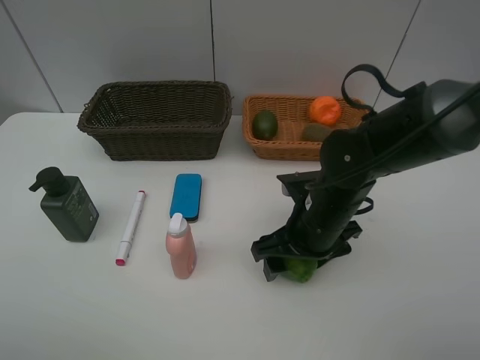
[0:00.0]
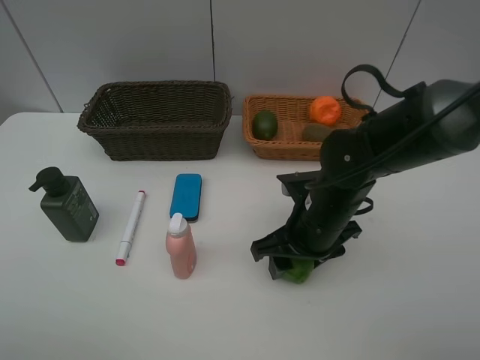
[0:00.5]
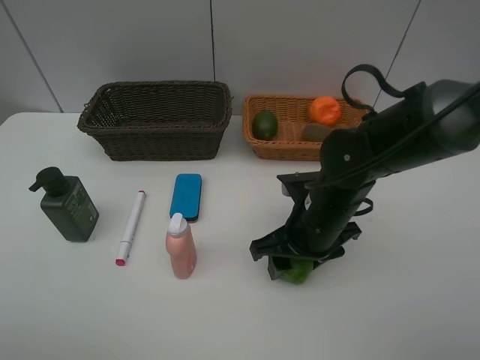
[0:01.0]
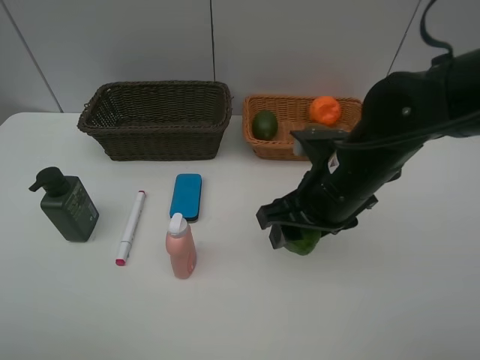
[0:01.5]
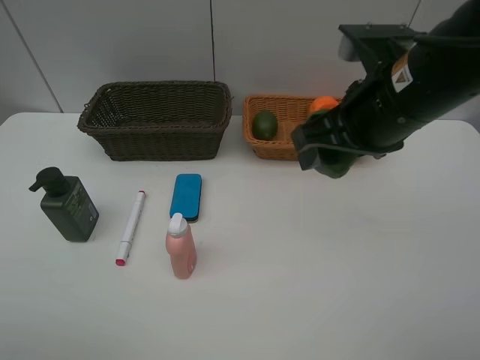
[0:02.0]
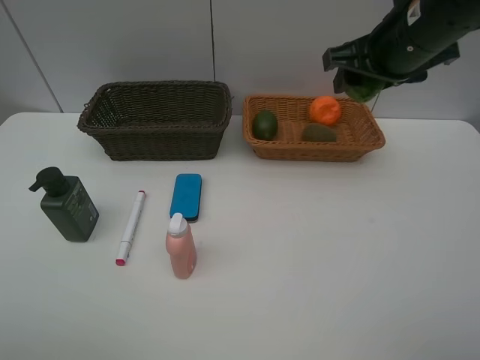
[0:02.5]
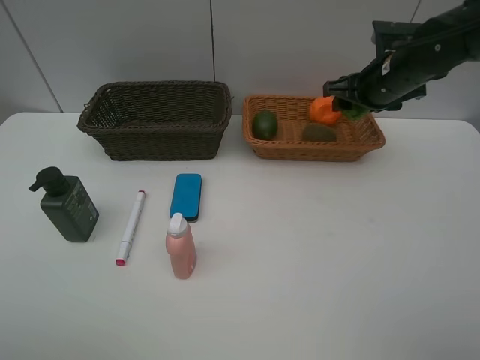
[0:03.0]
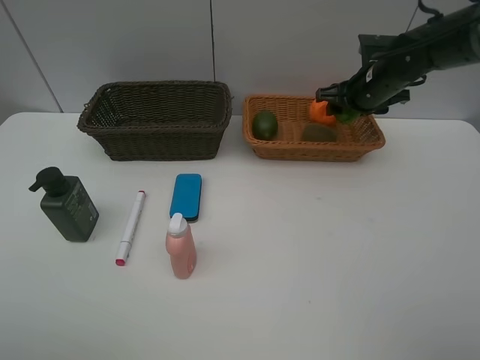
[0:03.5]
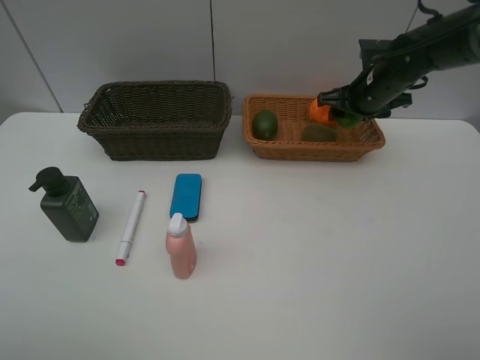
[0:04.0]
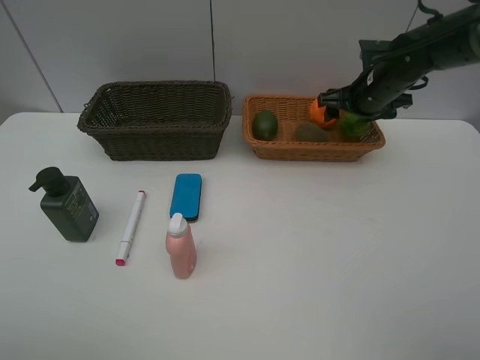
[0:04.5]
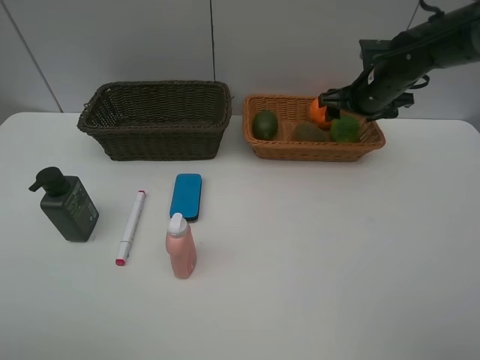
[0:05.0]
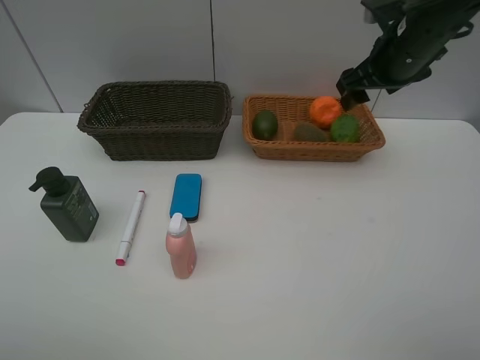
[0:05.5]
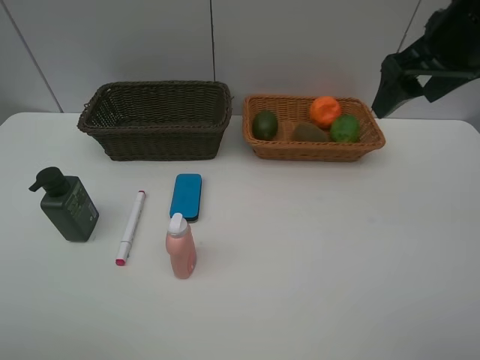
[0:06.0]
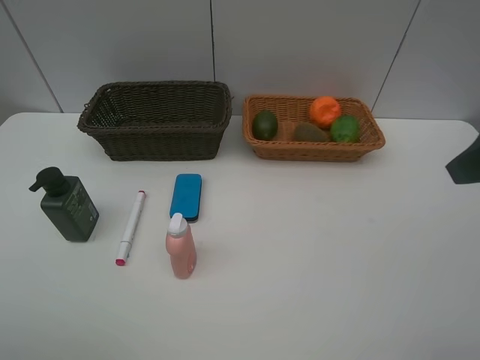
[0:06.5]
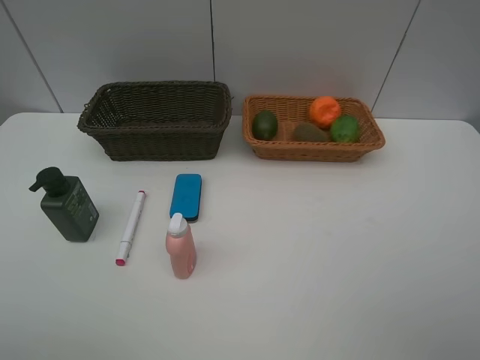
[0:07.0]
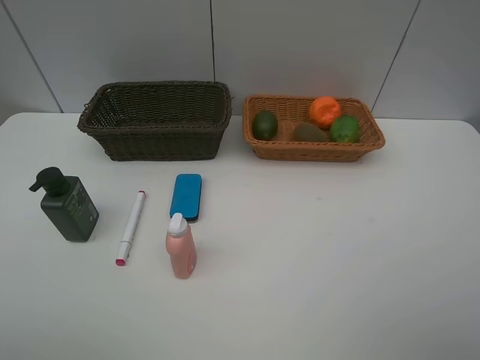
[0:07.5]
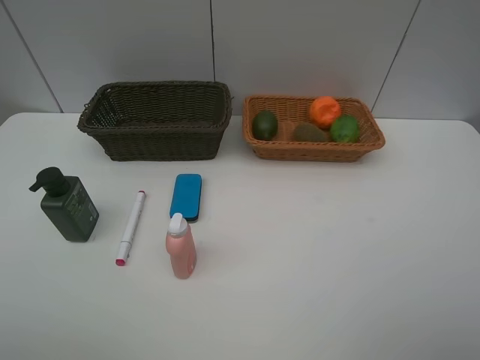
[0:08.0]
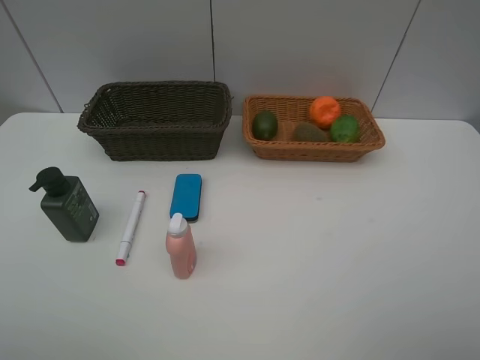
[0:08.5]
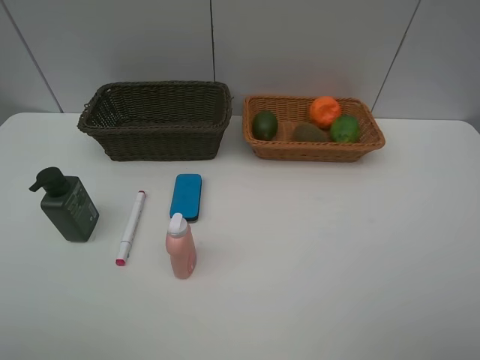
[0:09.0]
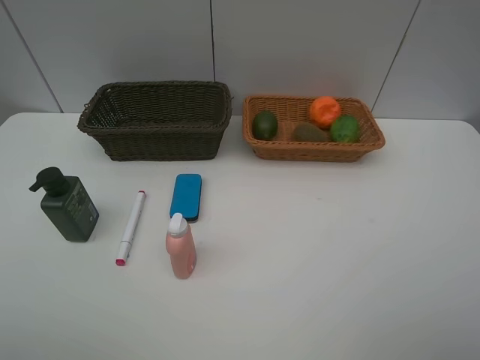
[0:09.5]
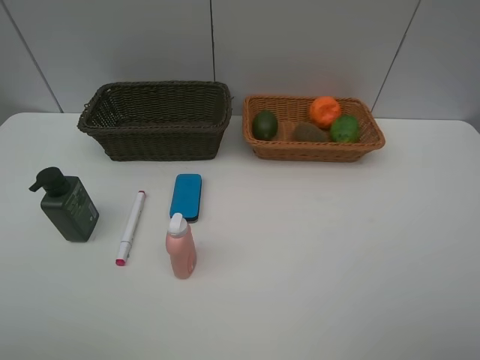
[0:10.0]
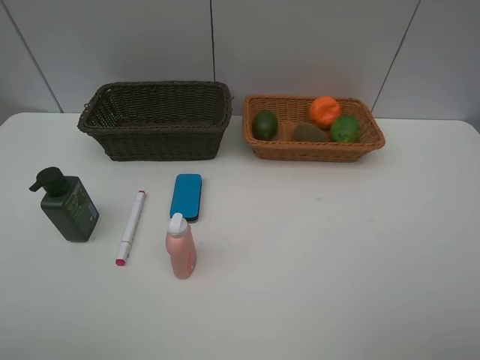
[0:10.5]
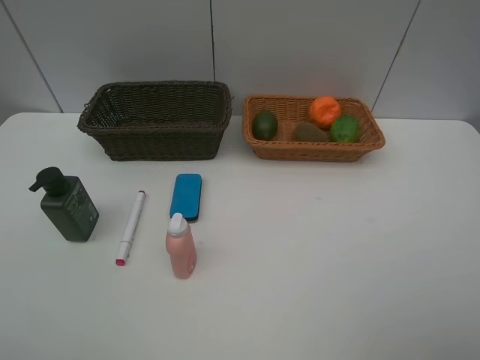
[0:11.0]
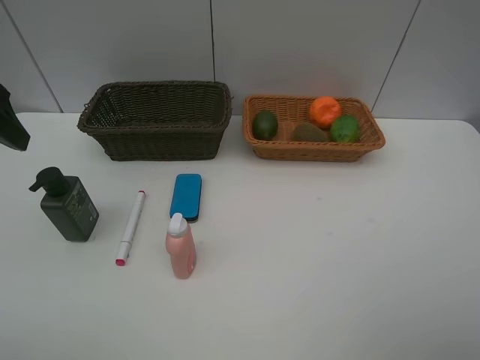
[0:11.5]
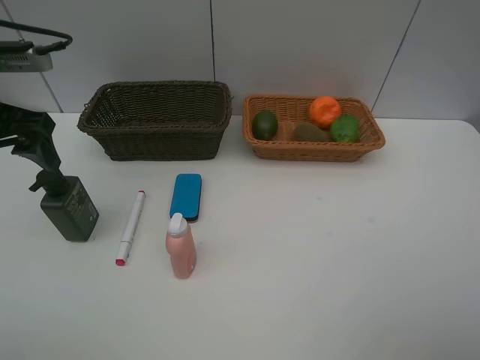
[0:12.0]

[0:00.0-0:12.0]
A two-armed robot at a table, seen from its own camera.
Task of the whole recording: Place multiple objects separately in different baskets.
Step, 0:01.5 to 0:05.0: Place the lime in the light basket with right gripper.
0:00.0 to 0:02.0: The right gripper shifts roughly 15 cm upward, and closes up.
0:02.0 to 0:04.0: The right gripper is displaced forward and downward by about 20 cm.
0:04.0 to 0:06.0: The right gripper moves backward and upward, roughly 20 cm, and opens.
0:06.0 to 0:08.0: The right gripper goes roughly 25 cm backward.
0:08.0 to 0:10.0: Both grippers stay about where they are.
0:10.0 to 0:12.0: The left gripper shifts approximately 25 cm forward.

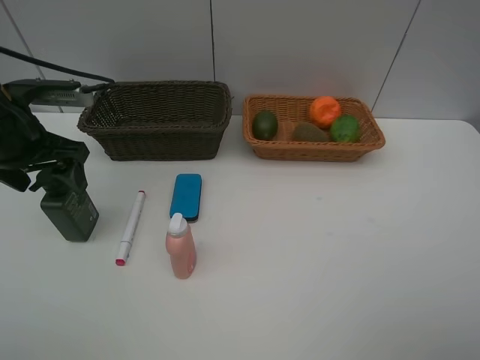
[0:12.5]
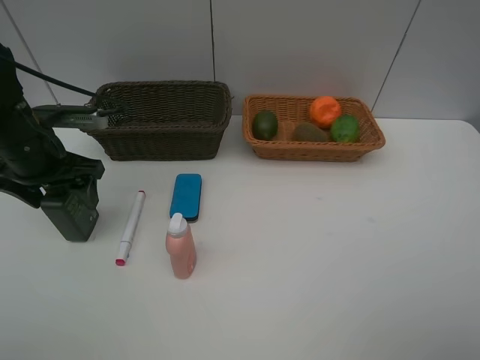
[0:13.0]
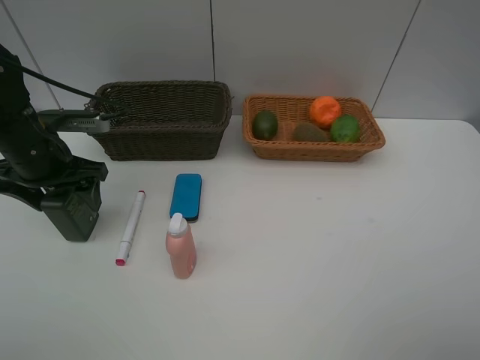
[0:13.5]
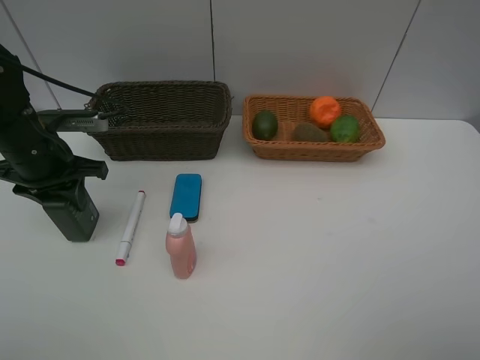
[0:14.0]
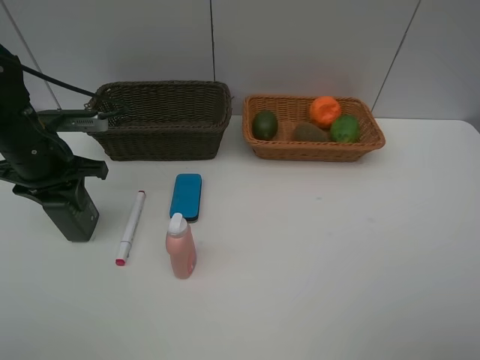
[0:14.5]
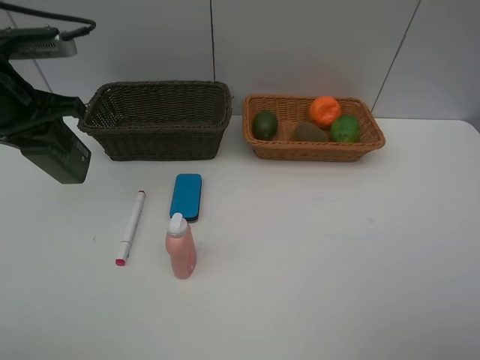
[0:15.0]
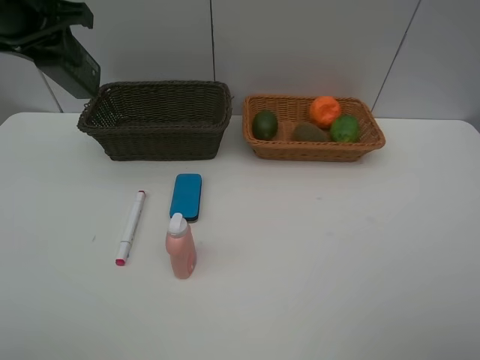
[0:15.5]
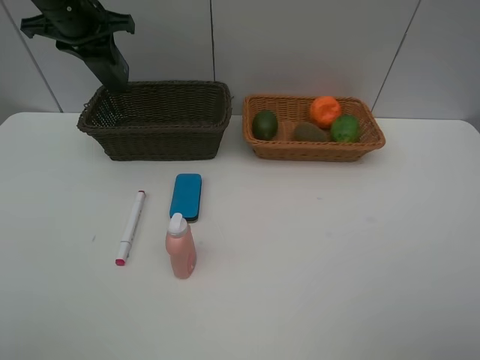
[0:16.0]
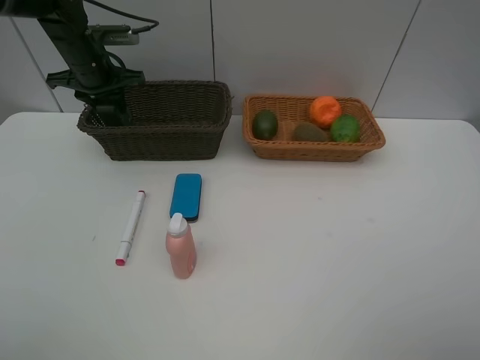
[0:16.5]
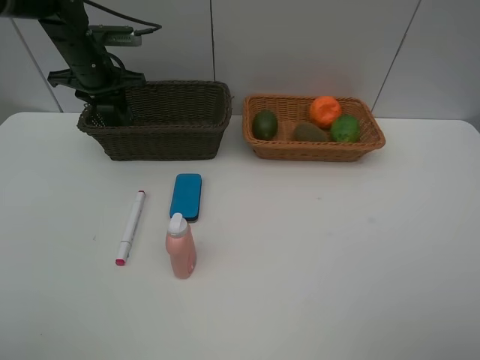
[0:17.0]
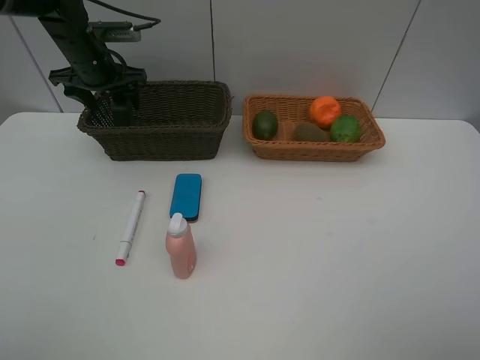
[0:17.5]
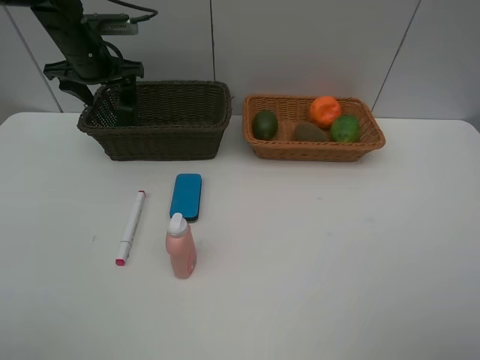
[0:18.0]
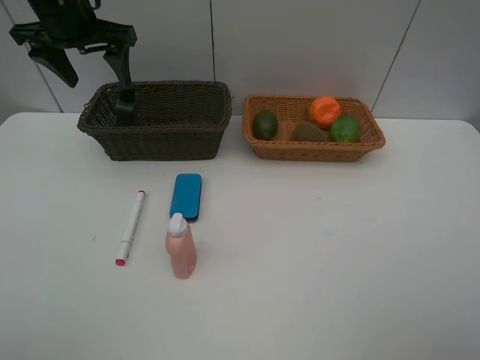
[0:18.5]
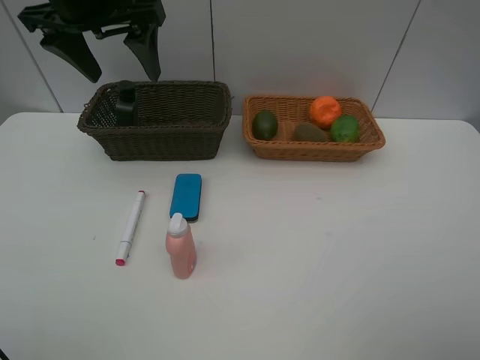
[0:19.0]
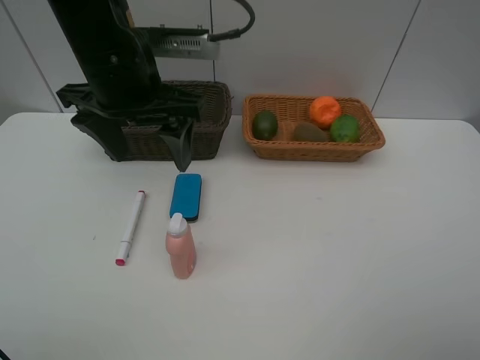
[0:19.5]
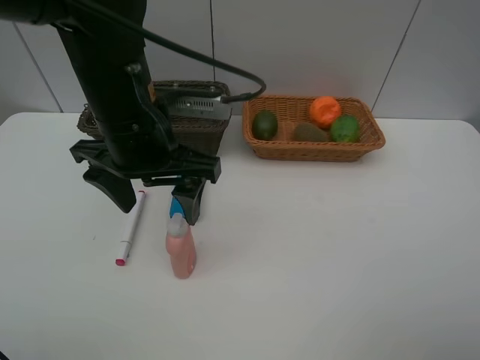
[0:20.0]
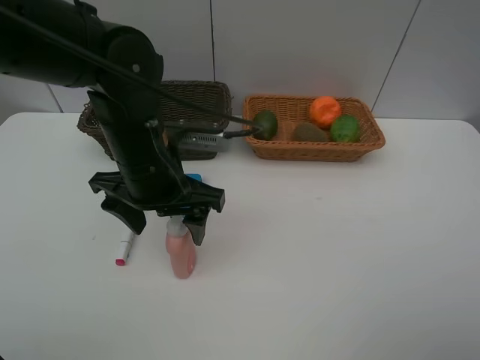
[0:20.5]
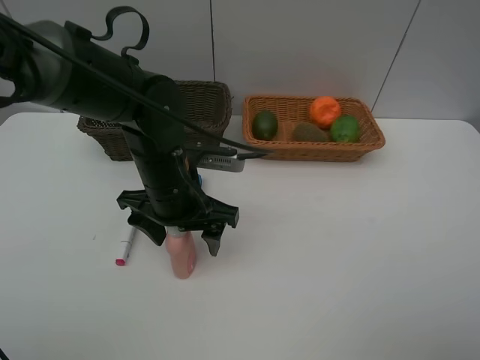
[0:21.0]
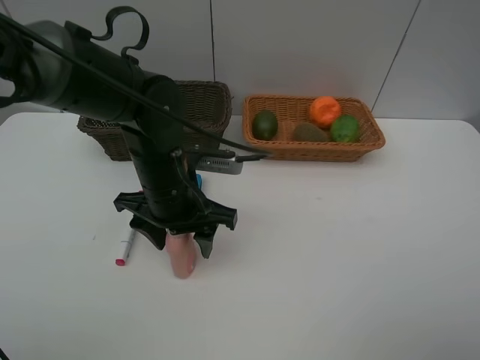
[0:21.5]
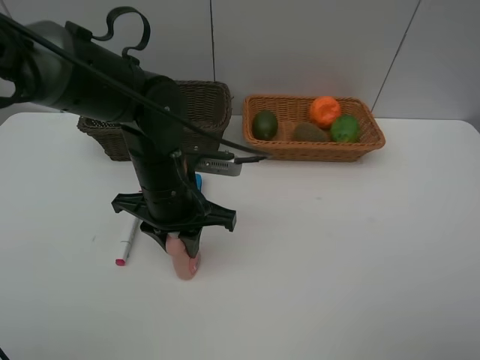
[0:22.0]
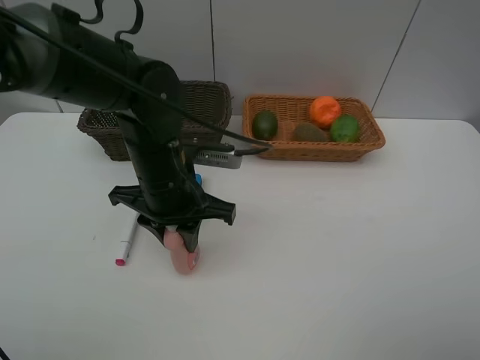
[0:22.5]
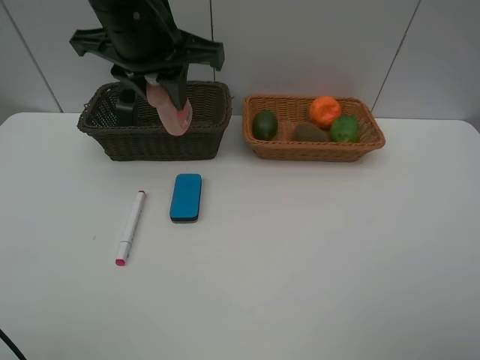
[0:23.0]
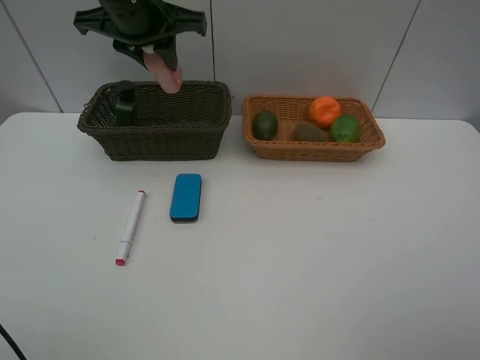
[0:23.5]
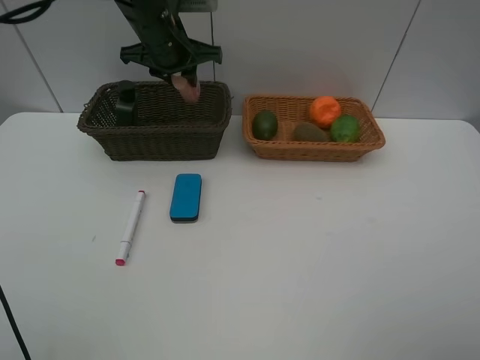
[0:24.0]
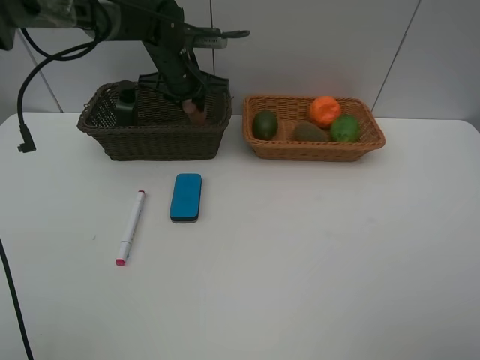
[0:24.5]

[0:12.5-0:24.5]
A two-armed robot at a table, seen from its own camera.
Task of the whole recording: Place multiple objects separately in different baskets.
Step, 0:12.5 to 0:14.5: Pick up the hard facial cleanser with left gripper.
Step, 0:15.0 to 0:18.0: Place the hard facial cleanser in the dark basket with left gripper.
Step, 0:18.5 to 0:22.5: Pick up the laundry detergent with left gripper.
0:12.5 to 0:14.5: The left gripper closes its fingers.
0:14.5 to 0:16.5: The left gripper goes approximately 20 cm forward.
0:16.5 to 0:18.5: The left gripper is displaced upward and backward by some 10 cm, and opens up.
0:18.5 to 0:20.5: The left gripper moves backward, to the right and downward, some 25 cm.
0:20.5 to 0:22.5: The left gripper closes up.
0:22.5 to 0:24.5: The left gripper is displaced forward by roughly 20 cm.

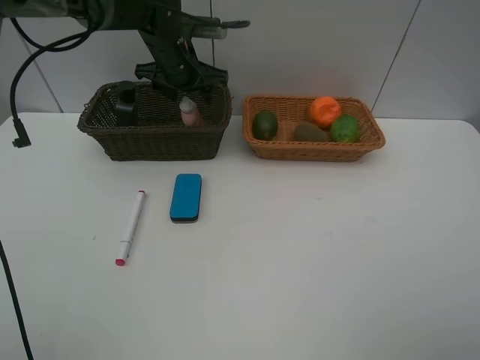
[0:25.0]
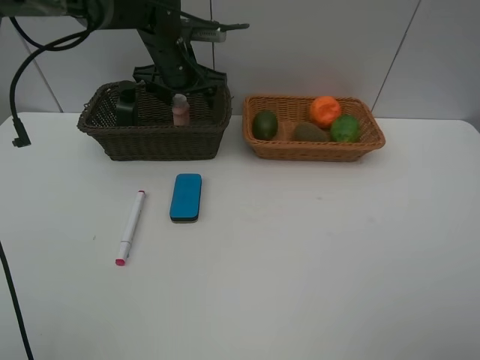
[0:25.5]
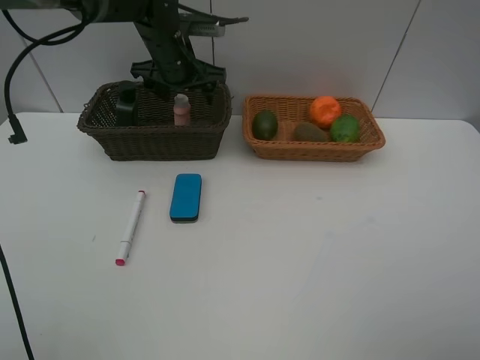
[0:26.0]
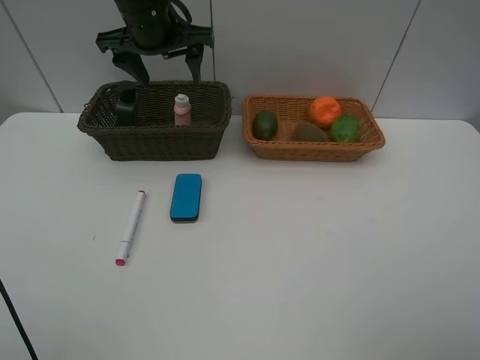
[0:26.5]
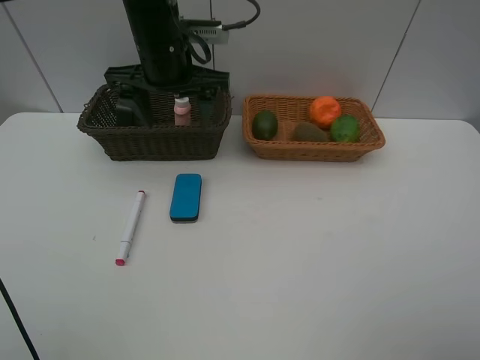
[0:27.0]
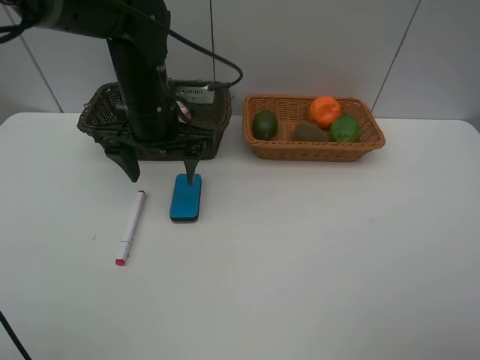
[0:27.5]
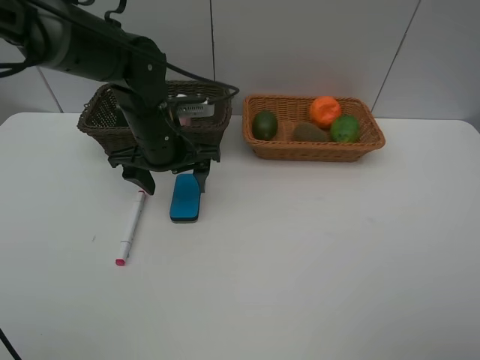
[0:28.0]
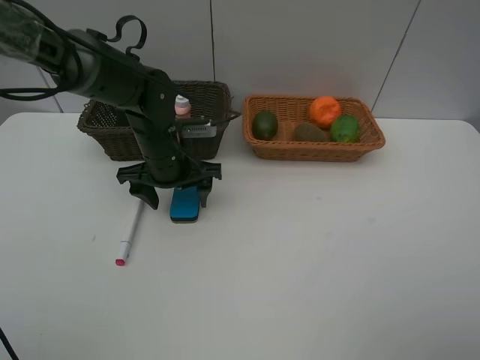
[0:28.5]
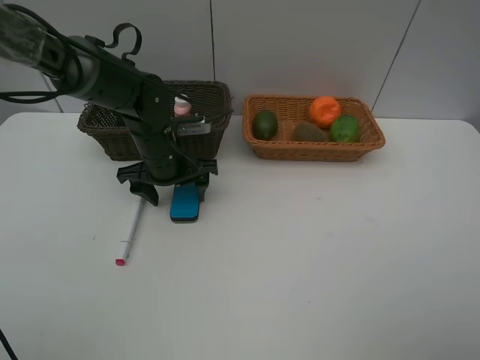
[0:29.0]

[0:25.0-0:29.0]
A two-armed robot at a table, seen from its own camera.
Task of the whole recording: Place multiple objects separately in different baskets.
0:25.0 to 0:27.0: The left gripper moves backward, approximately 10 cm.
0:27.0 to 0:29.0: The left gripper goes some 15 cm downward.
